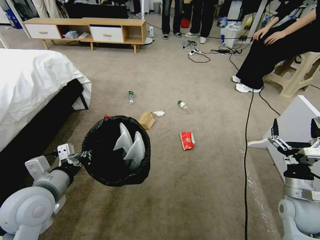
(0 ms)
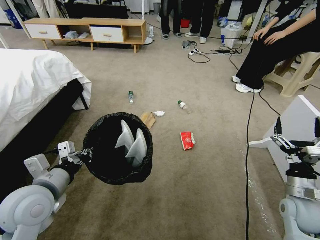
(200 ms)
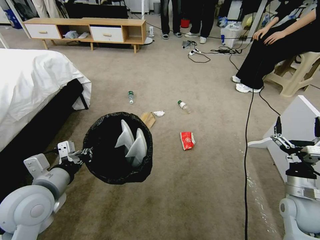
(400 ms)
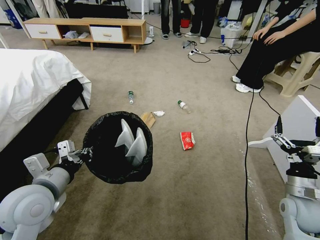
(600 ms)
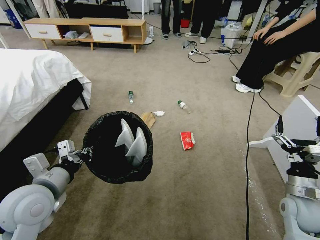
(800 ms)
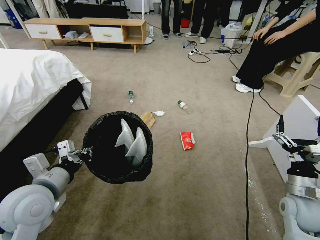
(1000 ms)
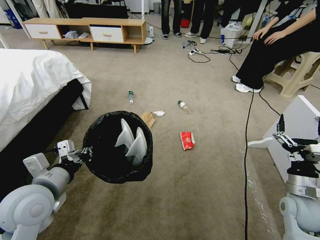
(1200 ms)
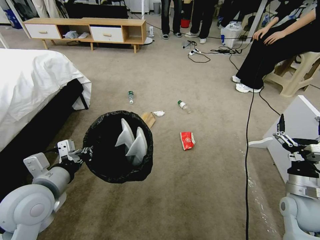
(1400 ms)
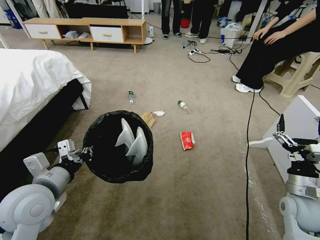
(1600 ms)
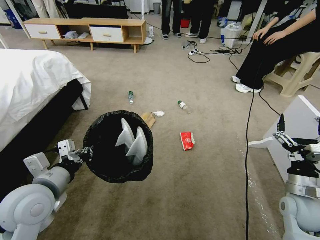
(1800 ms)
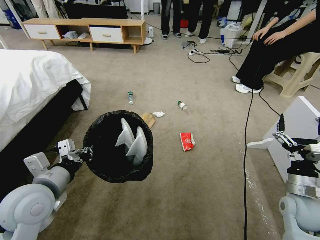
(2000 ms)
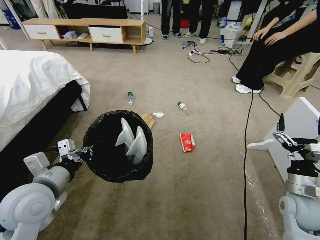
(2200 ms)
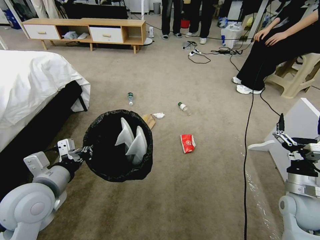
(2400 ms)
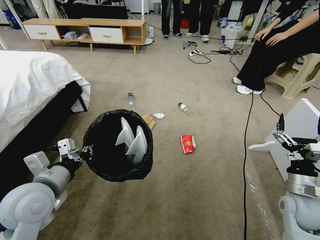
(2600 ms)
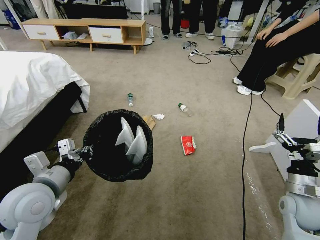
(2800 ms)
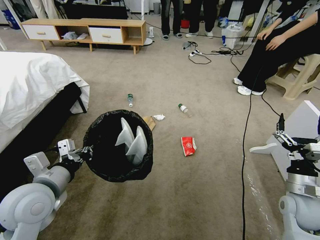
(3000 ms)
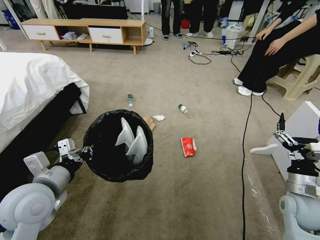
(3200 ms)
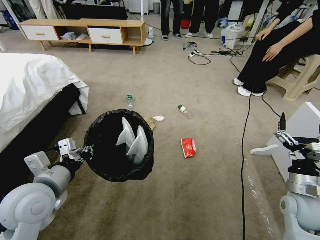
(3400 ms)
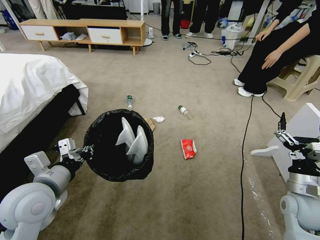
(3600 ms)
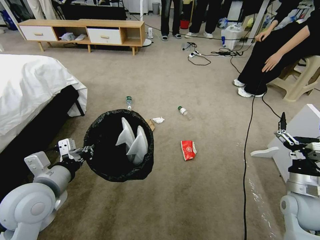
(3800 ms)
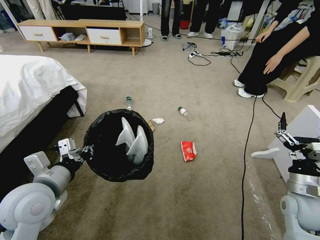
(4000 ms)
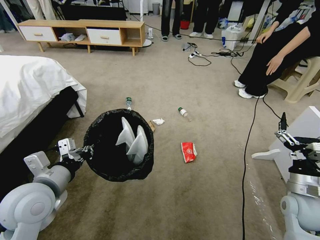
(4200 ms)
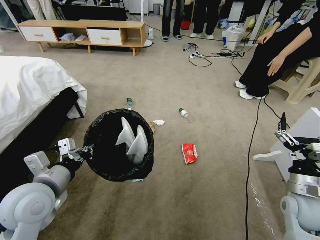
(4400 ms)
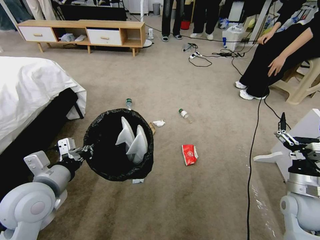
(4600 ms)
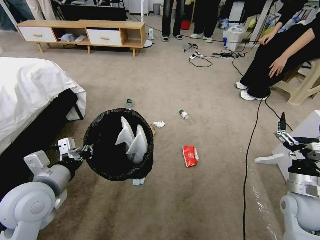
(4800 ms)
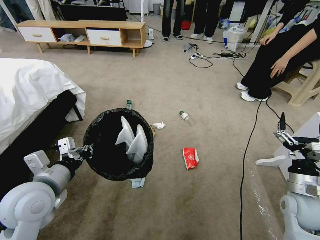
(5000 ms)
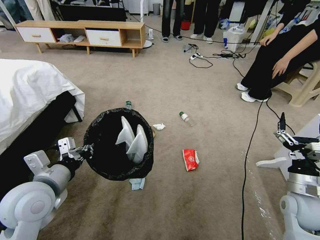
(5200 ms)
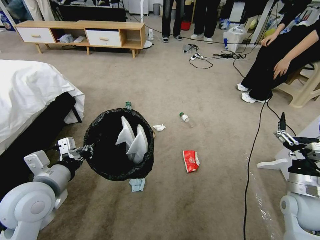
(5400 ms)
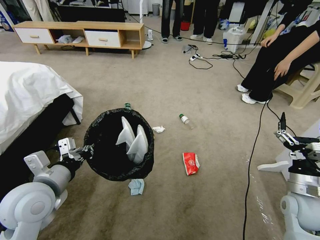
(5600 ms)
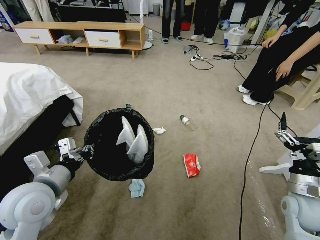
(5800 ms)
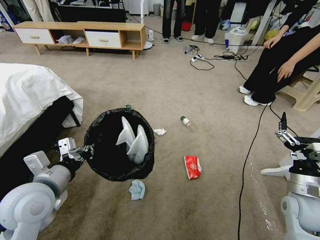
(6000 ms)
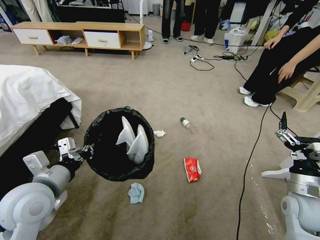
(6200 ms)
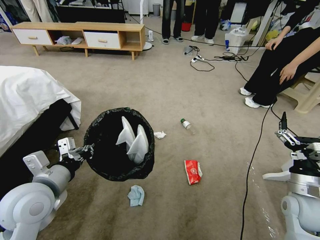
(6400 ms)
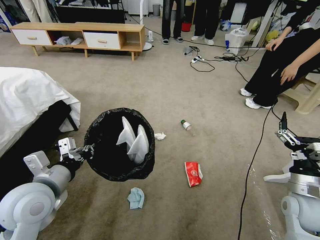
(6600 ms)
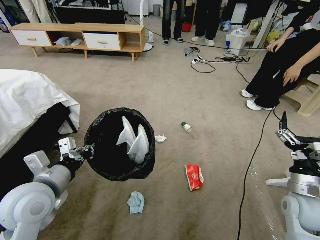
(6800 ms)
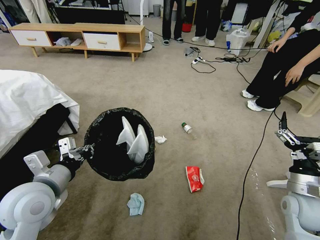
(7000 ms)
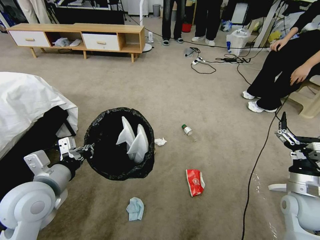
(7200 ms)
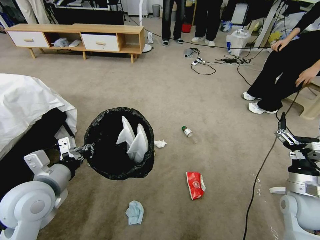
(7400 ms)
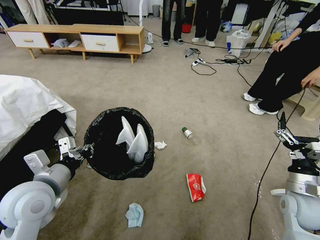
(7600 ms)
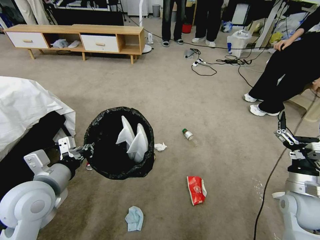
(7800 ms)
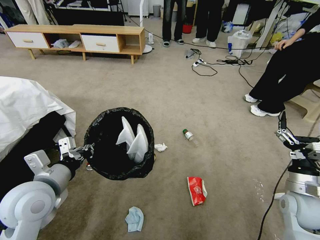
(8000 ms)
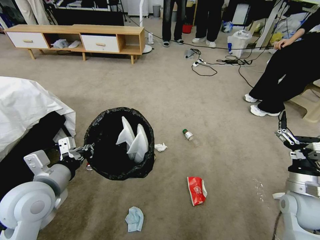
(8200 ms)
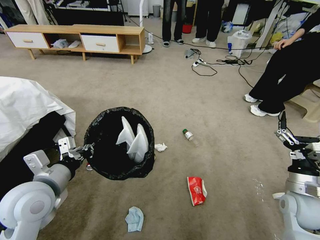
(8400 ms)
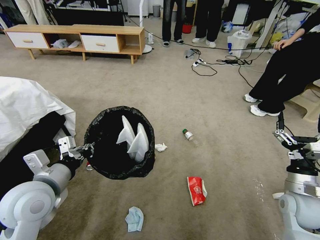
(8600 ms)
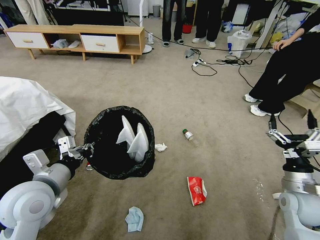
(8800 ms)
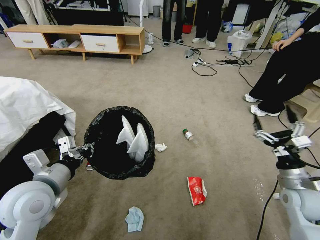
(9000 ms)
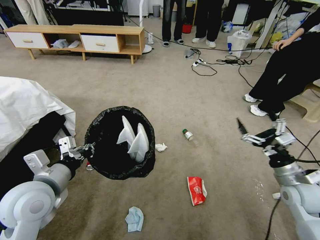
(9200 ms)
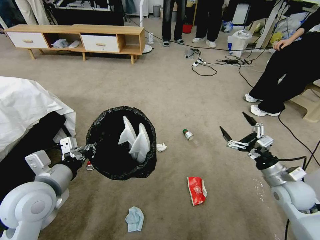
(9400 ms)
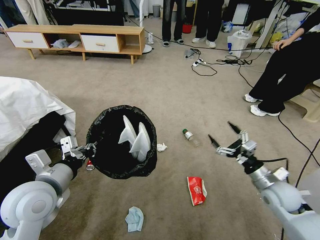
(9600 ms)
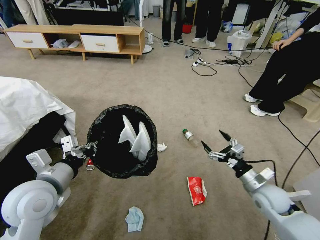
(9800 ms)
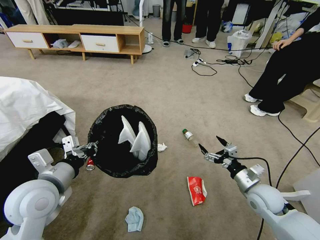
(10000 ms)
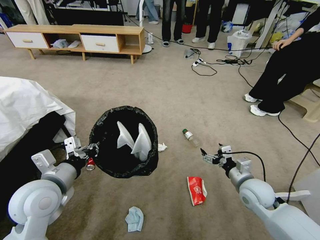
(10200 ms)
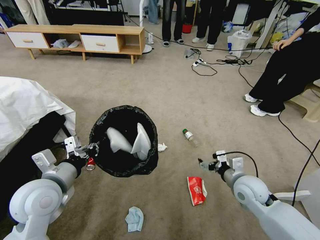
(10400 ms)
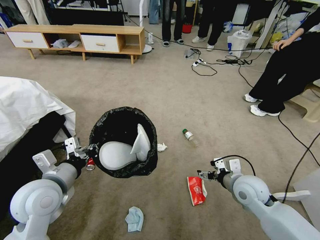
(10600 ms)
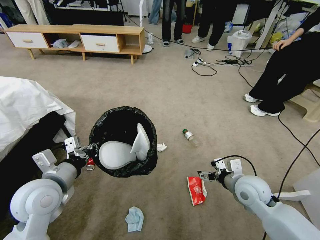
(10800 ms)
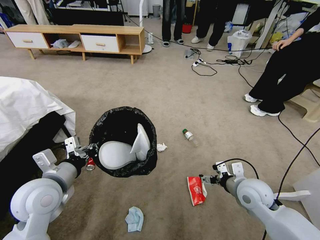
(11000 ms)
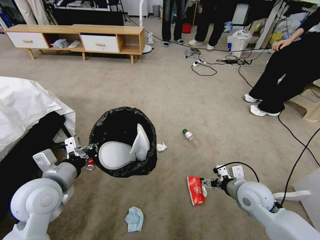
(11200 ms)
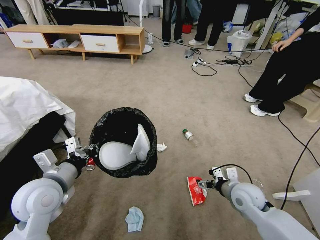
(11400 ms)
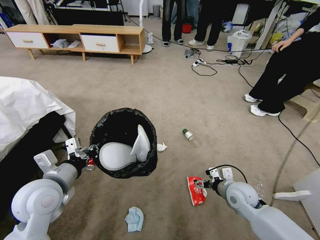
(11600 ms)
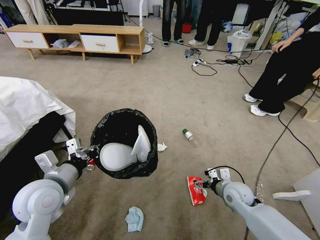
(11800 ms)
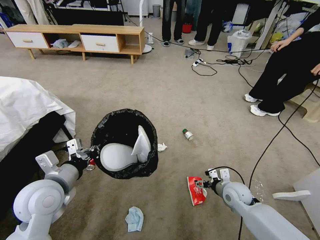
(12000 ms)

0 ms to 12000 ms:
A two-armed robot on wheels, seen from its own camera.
Task of the whole recording: Pick up the trash bin and place the garbage on the floor into it.
1600 ms to 3000 ms: Both grippers stay about where they are.
9000 ms to 10400 ms: The right gripper is displaced to the left by some 10 cm.
10400 ms to 12000 ms: The right gripper travels downward by roughly 10 cm.

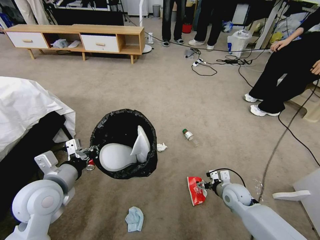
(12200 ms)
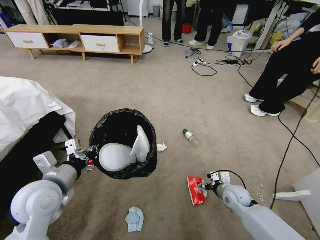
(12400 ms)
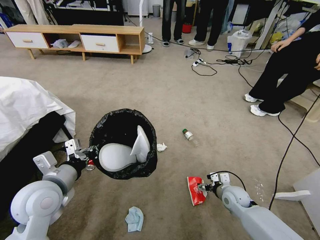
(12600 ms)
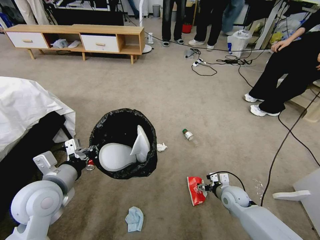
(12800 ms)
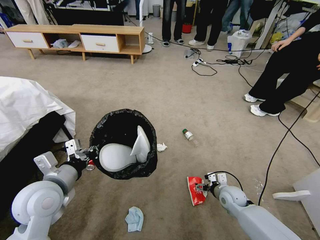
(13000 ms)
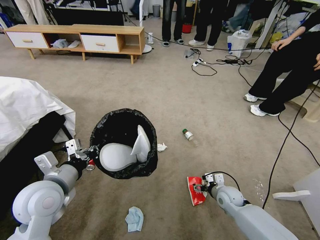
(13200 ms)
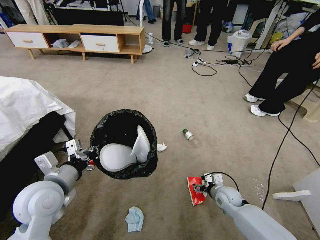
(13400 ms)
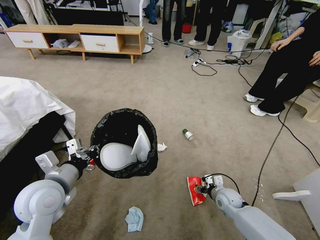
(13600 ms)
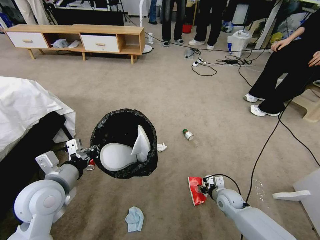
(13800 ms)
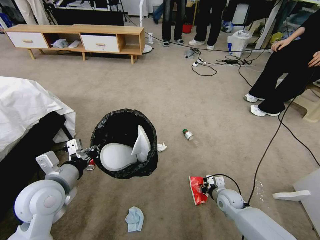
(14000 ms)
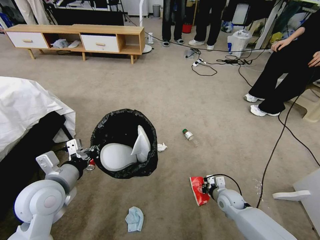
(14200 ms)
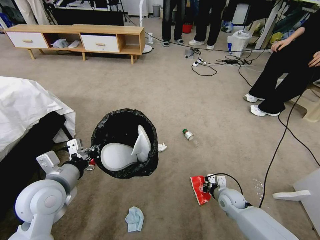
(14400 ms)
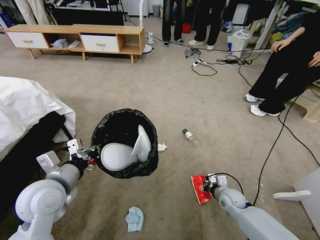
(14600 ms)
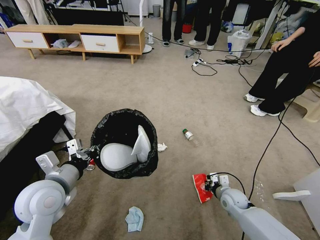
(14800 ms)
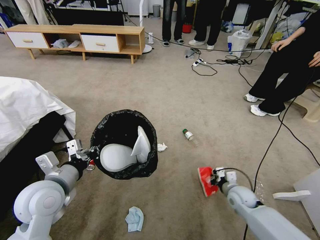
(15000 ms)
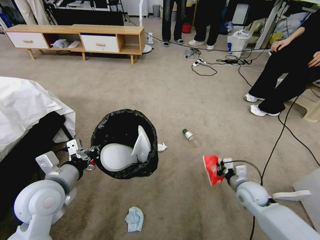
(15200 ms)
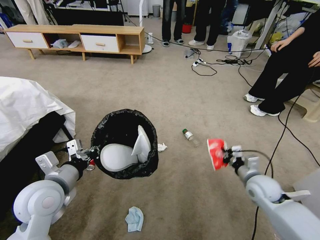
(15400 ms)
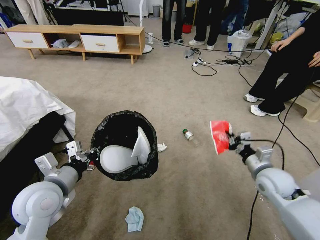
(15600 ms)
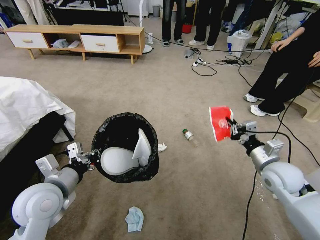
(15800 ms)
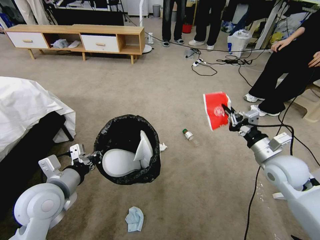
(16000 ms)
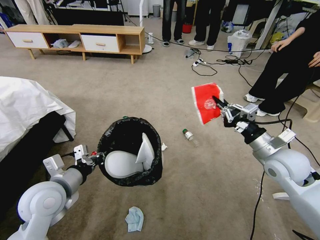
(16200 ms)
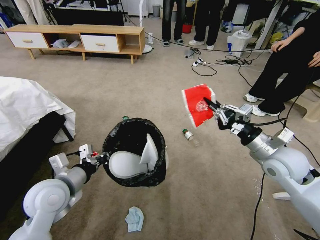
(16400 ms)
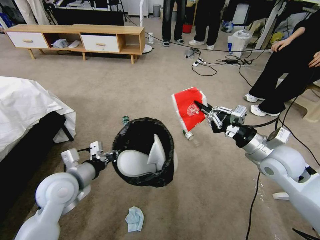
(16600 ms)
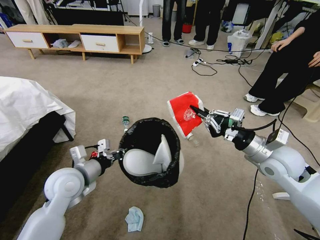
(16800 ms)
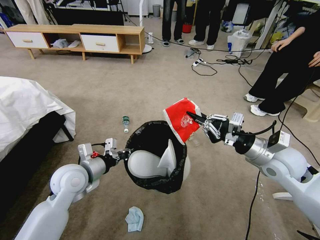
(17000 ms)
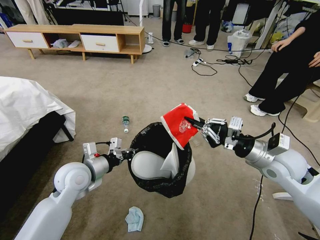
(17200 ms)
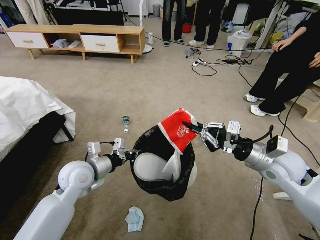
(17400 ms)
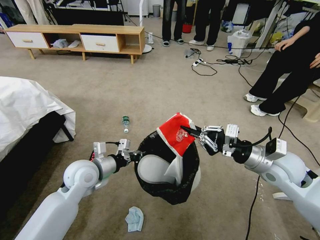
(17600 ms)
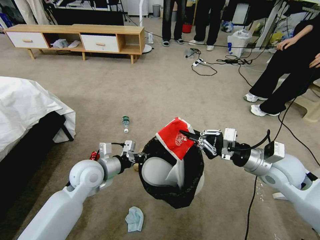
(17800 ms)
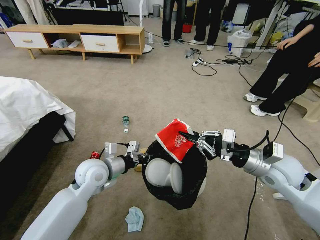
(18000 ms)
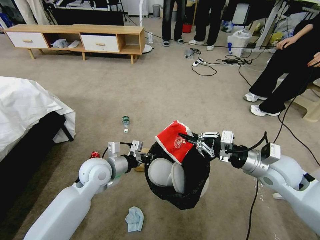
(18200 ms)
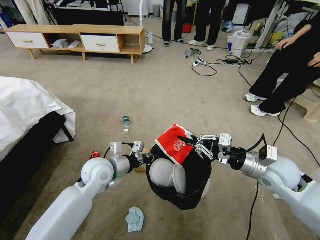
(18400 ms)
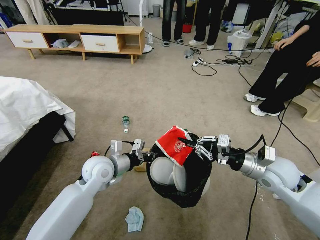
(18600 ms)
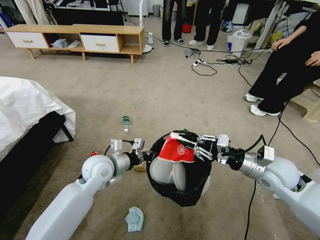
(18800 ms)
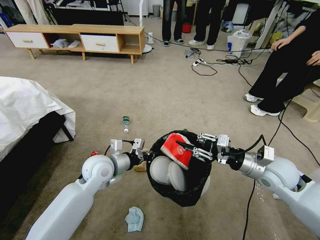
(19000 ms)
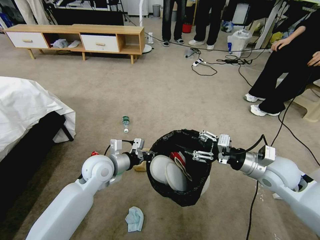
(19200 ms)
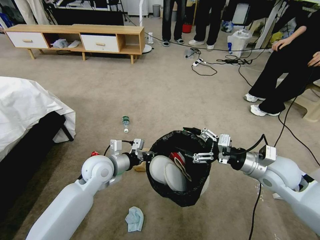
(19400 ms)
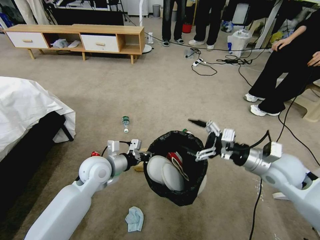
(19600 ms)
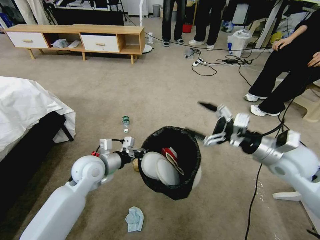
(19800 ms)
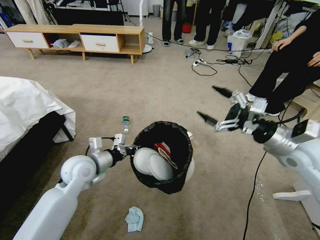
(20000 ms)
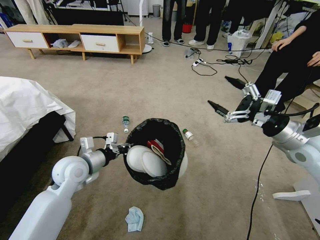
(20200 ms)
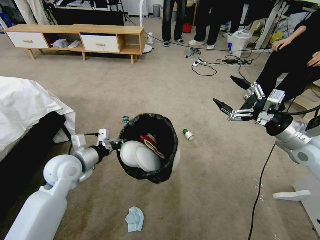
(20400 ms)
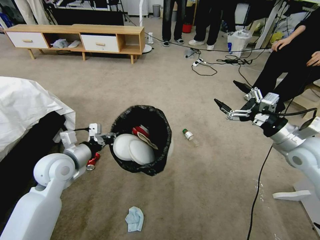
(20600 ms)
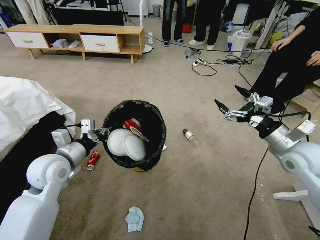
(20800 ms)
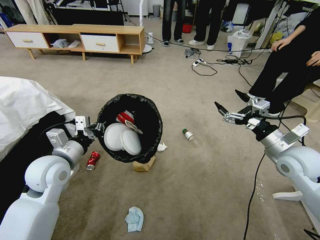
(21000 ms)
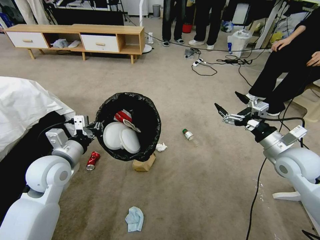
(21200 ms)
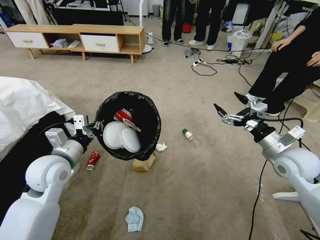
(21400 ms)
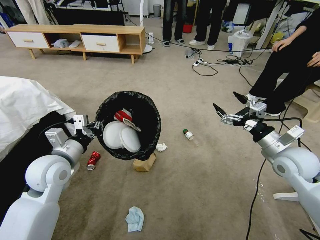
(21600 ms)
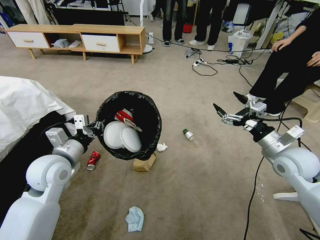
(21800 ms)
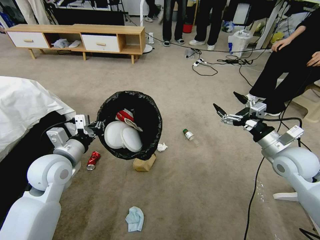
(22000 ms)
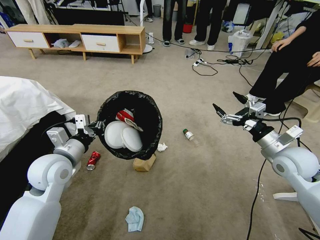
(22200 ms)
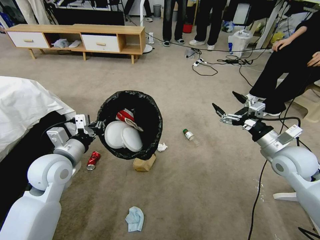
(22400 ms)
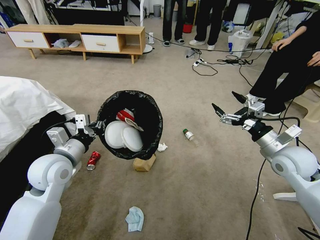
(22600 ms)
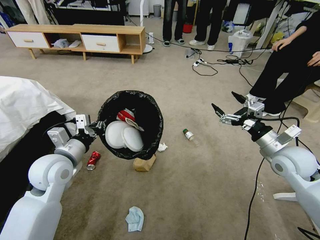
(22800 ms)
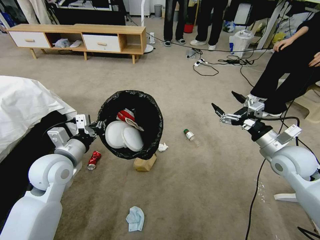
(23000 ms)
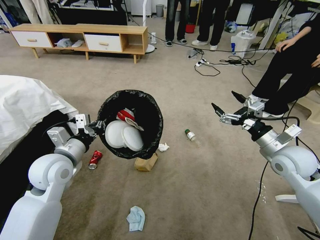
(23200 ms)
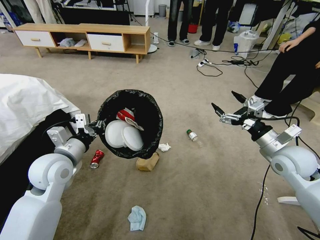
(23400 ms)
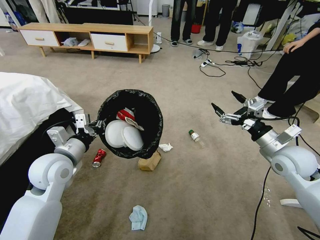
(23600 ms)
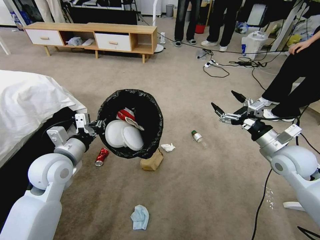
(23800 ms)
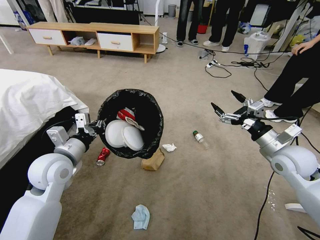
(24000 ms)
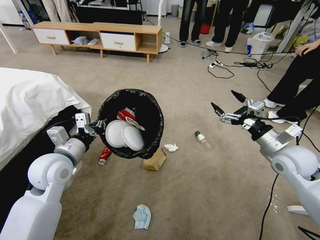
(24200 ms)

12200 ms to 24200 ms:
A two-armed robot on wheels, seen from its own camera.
Task of the whole recording: Pick up the trash bin and place the garbage on the floor into it.
12200 ms to 13800 ms: The right gripper goes roughly 5 cm downward, and closes its fingers.
13800 ms to 15200 ms: The right gripper goes about 10 cm upward, and closes its fingers.
15200 ms to 16600 ms: The right gripper heads upward, covering some 20 cm.
16600 ms to 18200 ms: The left gripper goes some 10 cm to the right and forward.
18200 ms to 19800 ms: The right gripper opens up.
19800 ms to 21200 ms: The right gripper changes place by roughly 5 cm. Meanwhile the left gripper heads to the left and upward, covering approximately 10 cm.
21200 ms to 22600 ms: Neither gripper changes place.
